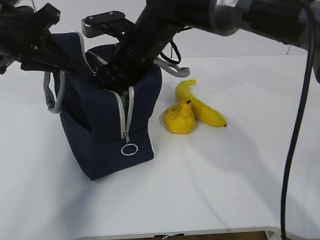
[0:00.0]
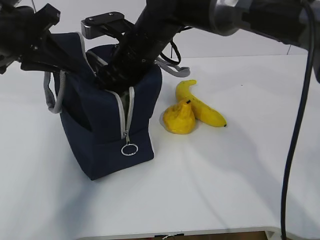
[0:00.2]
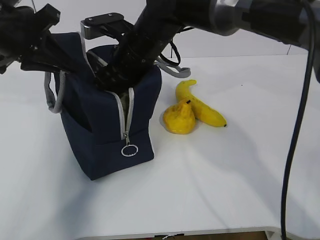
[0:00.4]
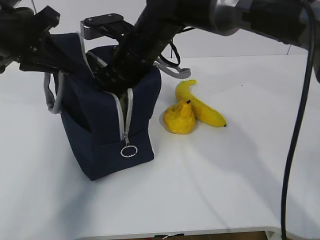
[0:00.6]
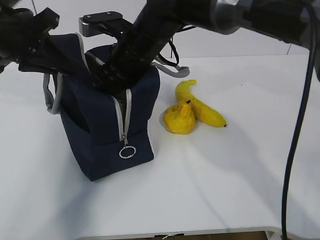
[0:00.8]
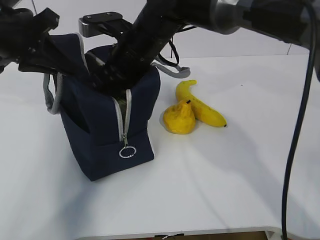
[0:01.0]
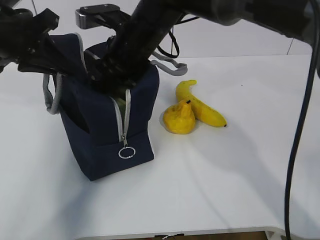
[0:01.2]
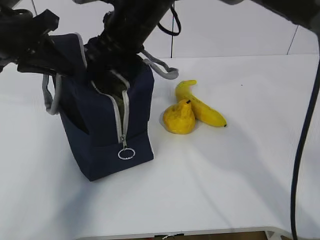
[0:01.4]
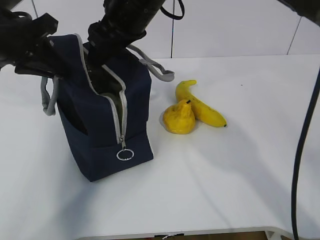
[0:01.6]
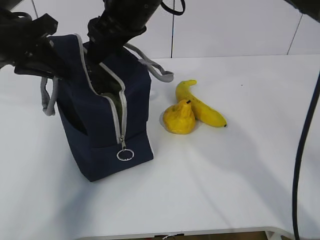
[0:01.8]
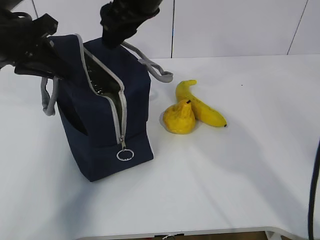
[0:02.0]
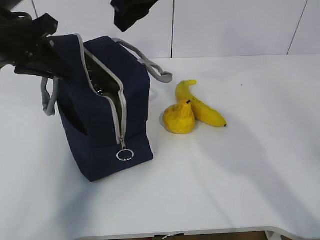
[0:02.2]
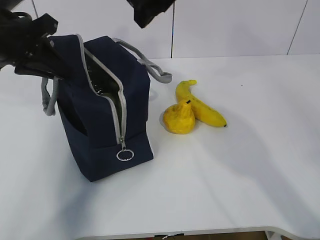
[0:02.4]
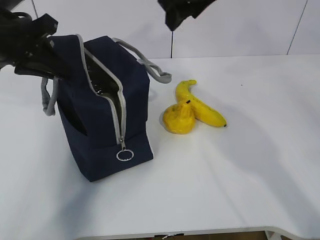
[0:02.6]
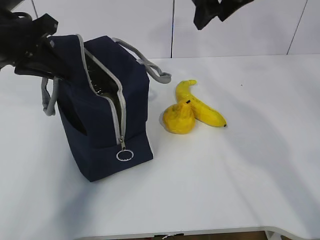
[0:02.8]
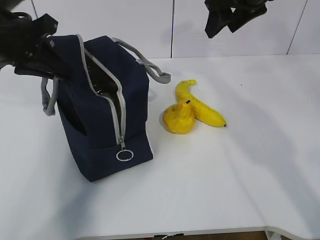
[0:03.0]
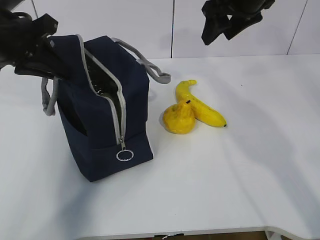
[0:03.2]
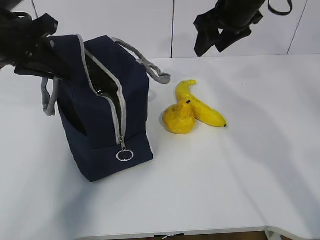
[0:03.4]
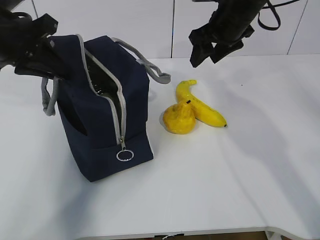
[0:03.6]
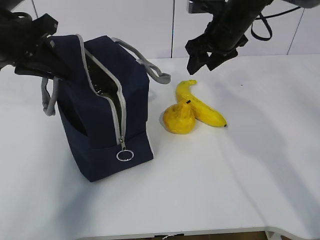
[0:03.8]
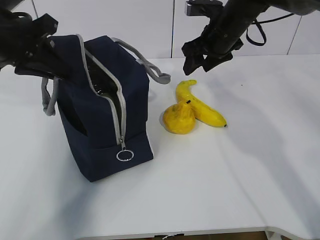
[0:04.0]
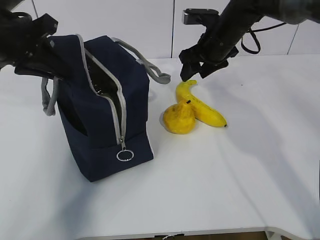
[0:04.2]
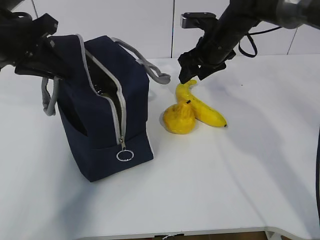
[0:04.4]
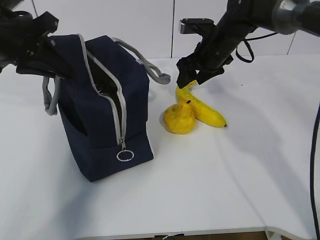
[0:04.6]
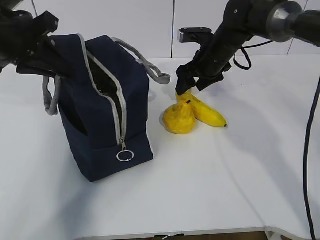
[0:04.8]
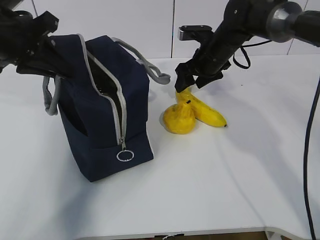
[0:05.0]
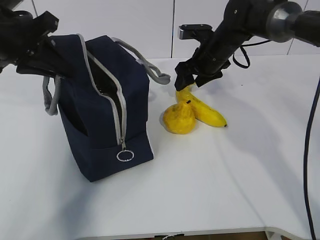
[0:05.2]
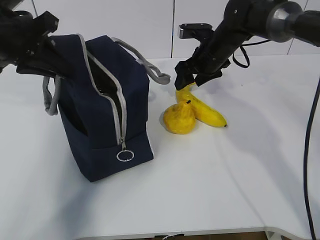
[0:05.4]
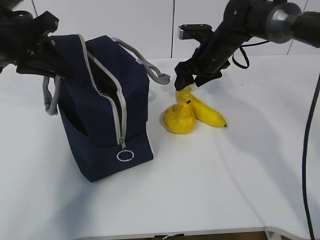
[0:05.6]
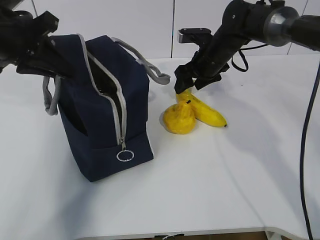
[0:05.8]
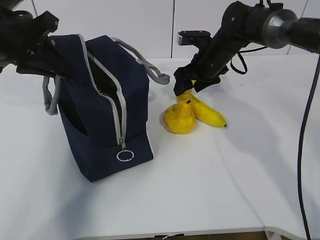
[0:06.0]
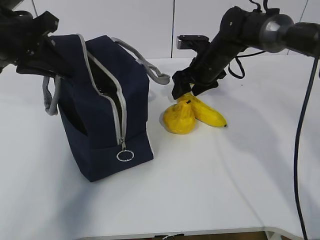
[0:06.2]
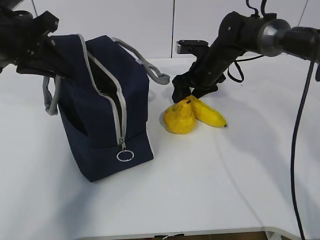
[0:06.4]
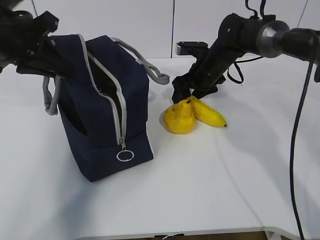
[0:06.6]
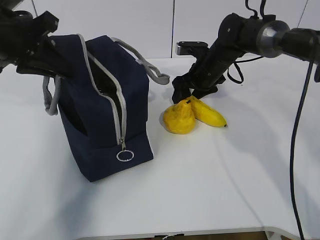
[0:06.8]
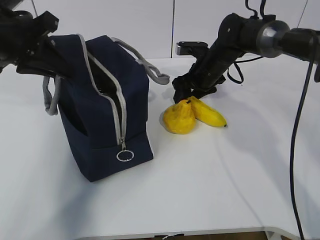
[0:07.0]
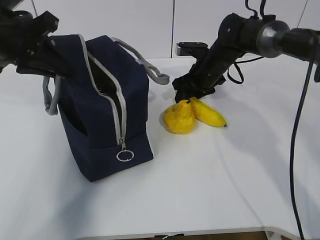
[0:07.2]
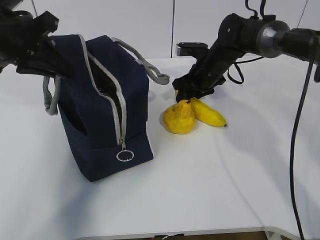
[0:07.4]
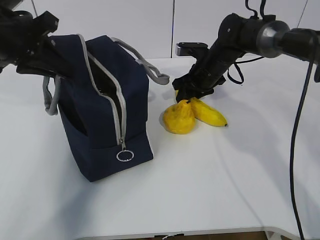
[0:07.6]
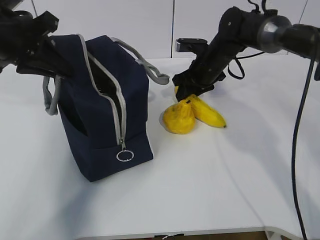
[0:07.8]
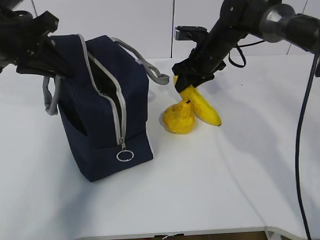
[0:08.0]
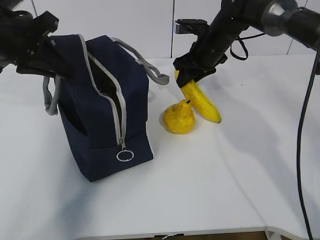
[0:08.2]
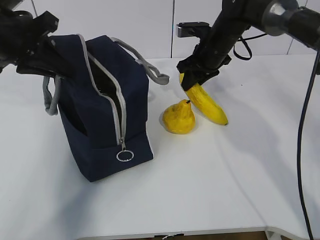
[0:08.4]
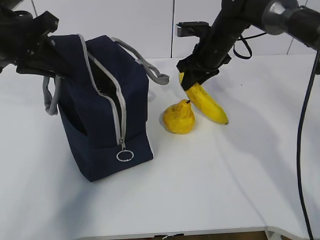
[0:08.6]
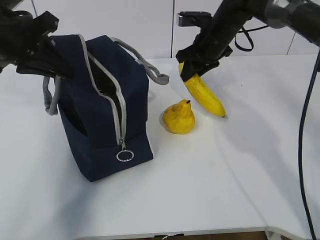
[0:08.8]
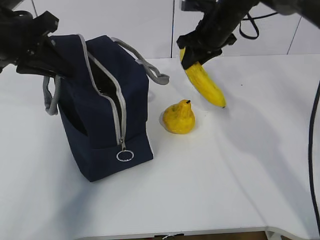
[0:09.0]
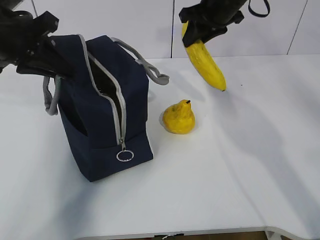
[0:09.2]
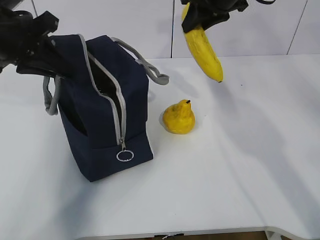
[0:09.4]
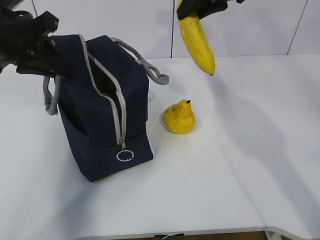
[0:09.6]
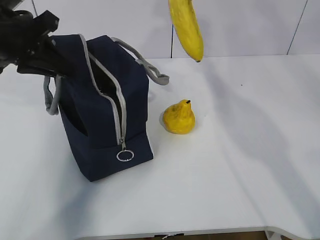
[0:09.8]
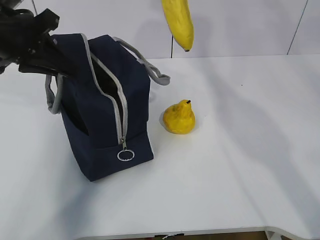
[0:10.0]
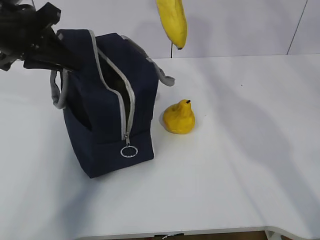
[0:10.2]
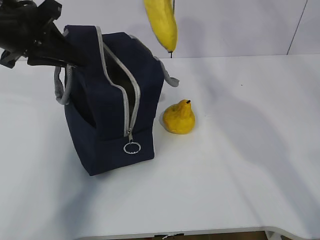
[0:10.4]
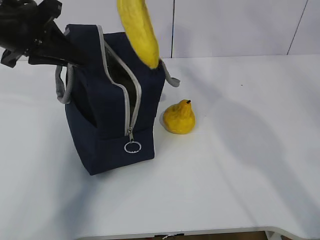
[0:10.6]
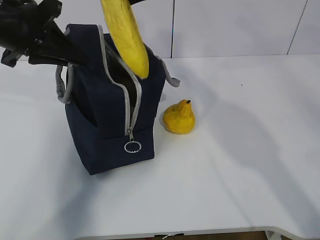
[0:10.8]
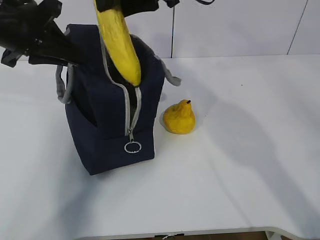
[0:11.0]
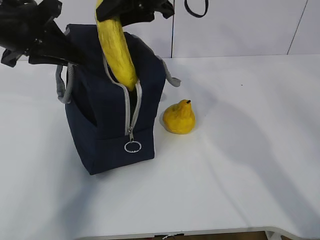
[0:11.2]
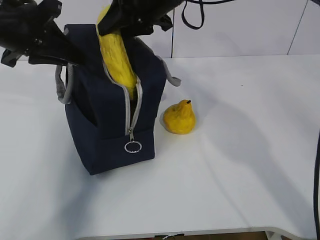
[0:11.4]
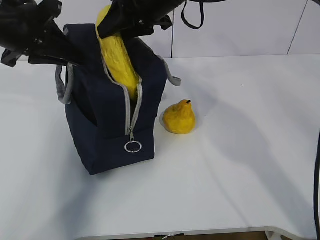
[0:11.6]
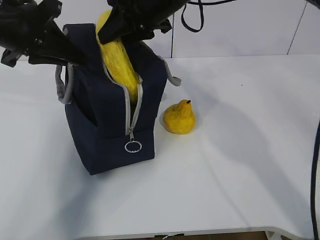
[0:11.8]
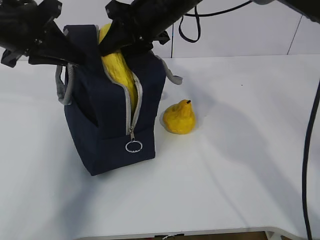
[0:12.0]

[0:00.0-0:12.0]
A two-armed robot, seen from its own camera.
Step, 0:00.0 to 0:02.2: Grab the banana with your right hand.
Step, 0:02.4 to 0:08.6: Place it into the bag with your right hand.
0:00.0 to 0:01.6: The right gripper moves upward, some 5 cm.
0:01.6 to 0:03.0: The right gripper goes approximately 20 cm to the right.
0:03.0 to 0:04.4: The right gripper is displaced downward and forward by some 15 cm.
0:04.4 to 0:06.0: The grippers move only a little.
0:06.0 to 0:07.6: The right gripper closes.
0:07.6 to 0:09.0: The right gripper moves upward, roughly 10 cm.
0:09.0 to 0:10.4: The right gripper moves upward and backward, some 20 cm.
0:10.4 to 0:12.0: The right gripper shifts some 15 cm downward and to the left.

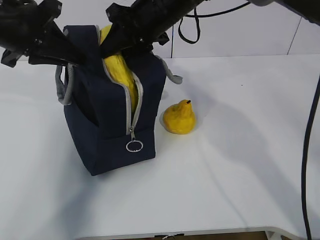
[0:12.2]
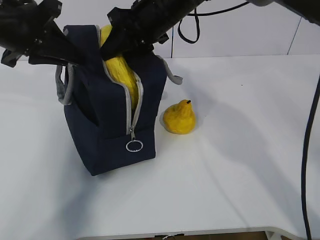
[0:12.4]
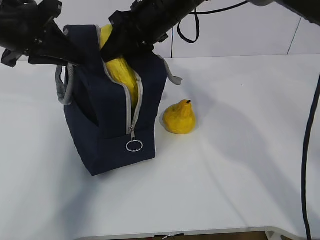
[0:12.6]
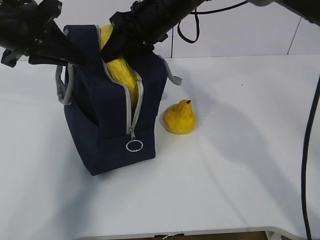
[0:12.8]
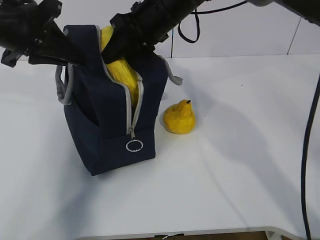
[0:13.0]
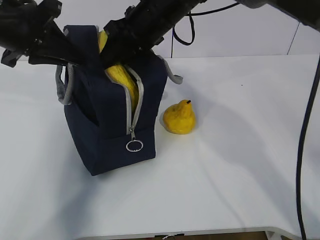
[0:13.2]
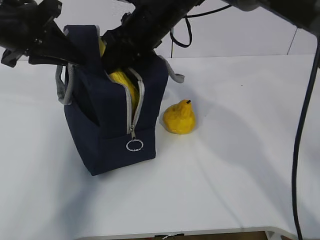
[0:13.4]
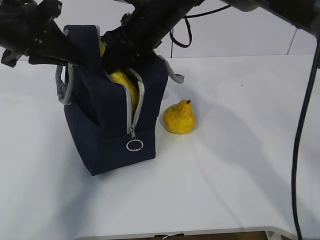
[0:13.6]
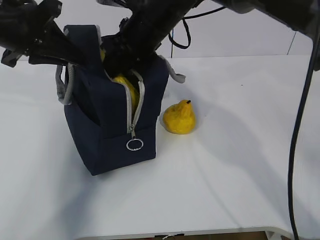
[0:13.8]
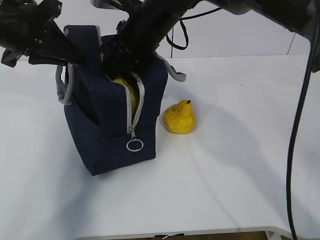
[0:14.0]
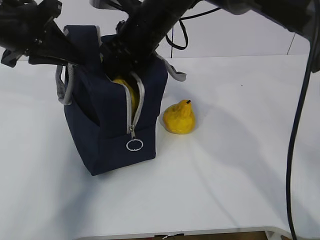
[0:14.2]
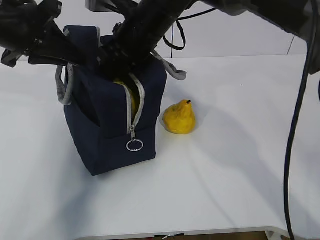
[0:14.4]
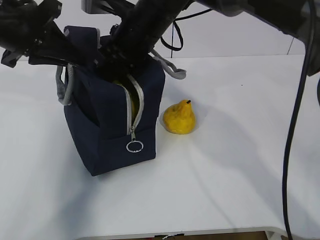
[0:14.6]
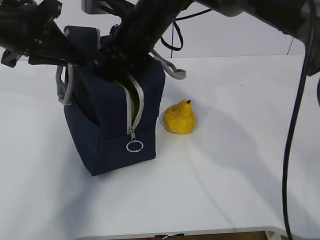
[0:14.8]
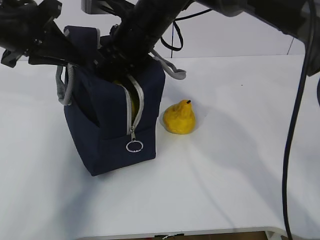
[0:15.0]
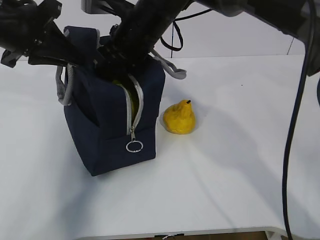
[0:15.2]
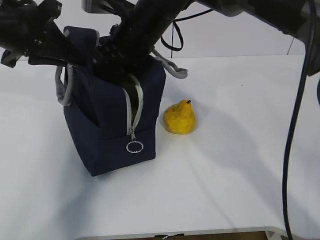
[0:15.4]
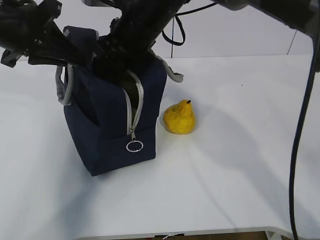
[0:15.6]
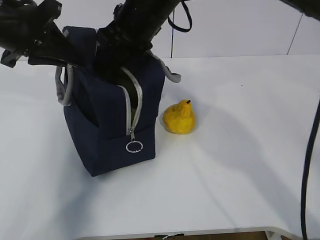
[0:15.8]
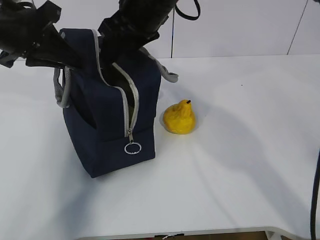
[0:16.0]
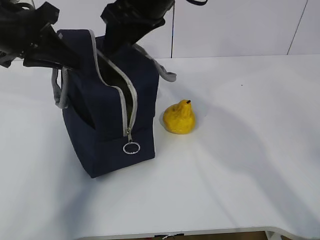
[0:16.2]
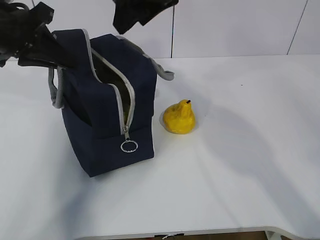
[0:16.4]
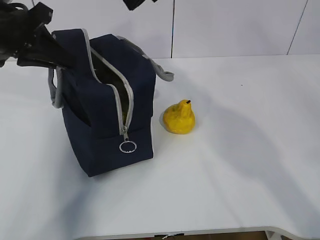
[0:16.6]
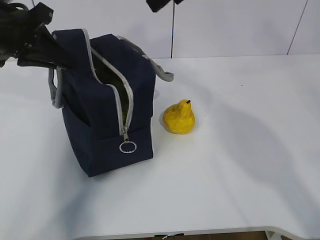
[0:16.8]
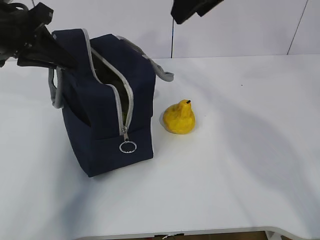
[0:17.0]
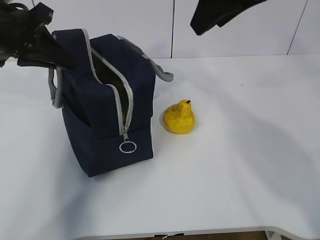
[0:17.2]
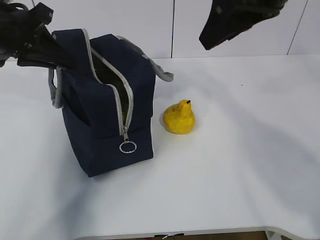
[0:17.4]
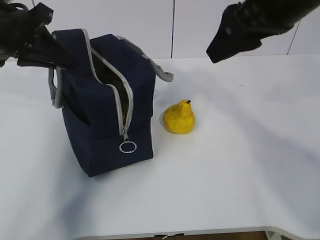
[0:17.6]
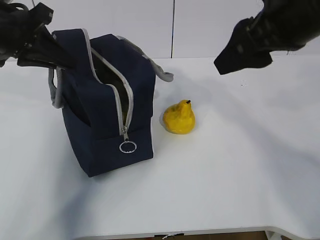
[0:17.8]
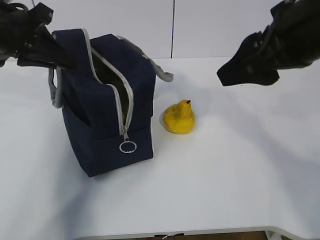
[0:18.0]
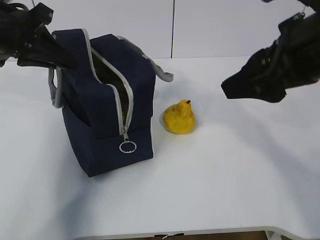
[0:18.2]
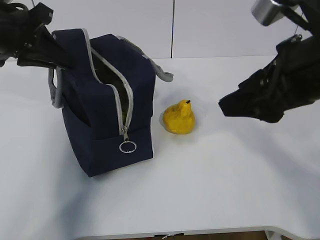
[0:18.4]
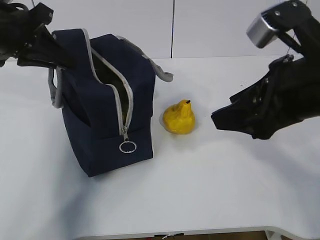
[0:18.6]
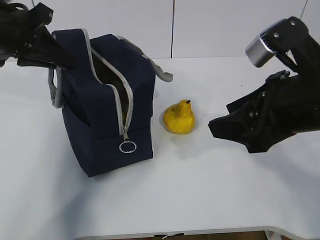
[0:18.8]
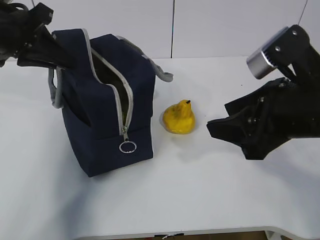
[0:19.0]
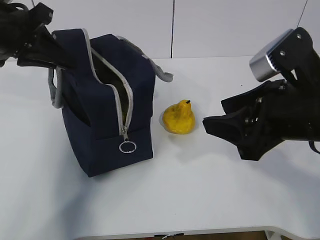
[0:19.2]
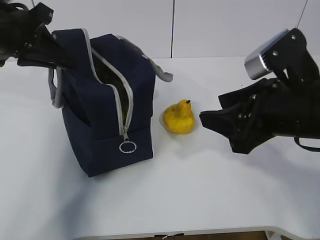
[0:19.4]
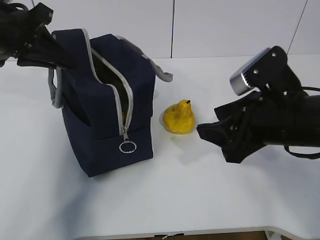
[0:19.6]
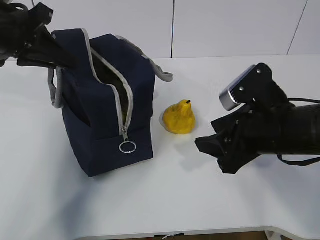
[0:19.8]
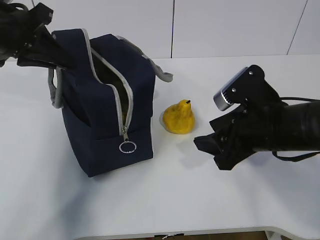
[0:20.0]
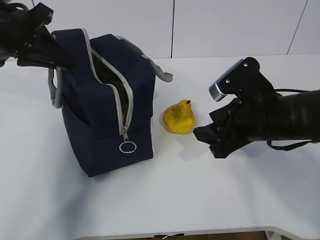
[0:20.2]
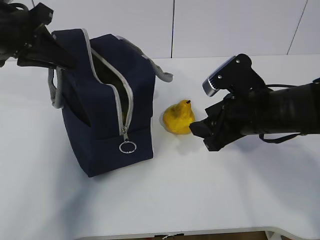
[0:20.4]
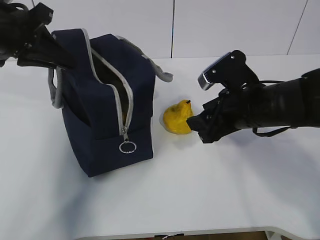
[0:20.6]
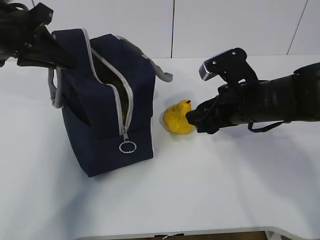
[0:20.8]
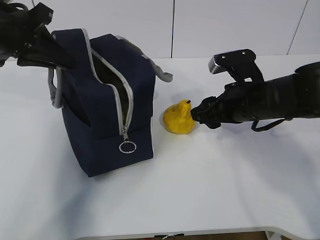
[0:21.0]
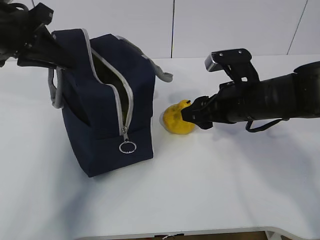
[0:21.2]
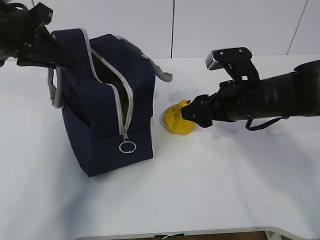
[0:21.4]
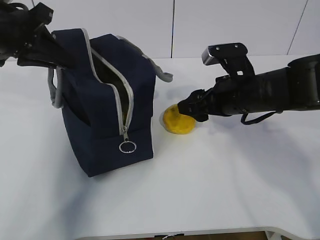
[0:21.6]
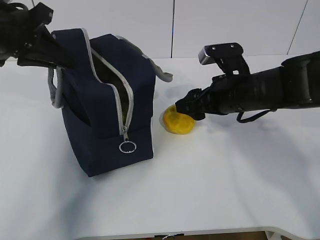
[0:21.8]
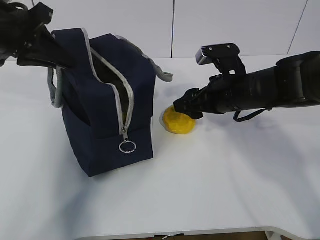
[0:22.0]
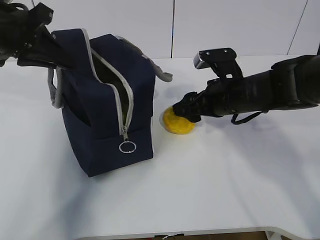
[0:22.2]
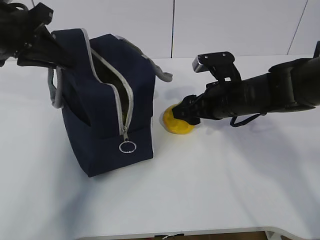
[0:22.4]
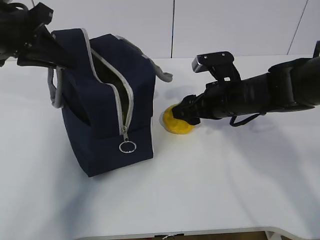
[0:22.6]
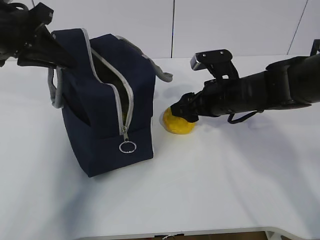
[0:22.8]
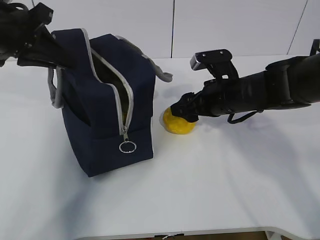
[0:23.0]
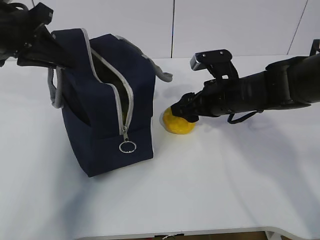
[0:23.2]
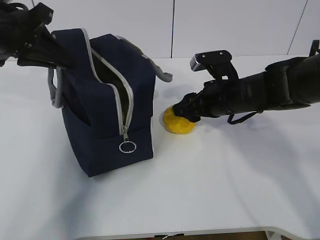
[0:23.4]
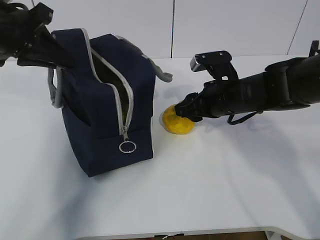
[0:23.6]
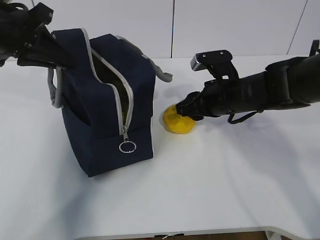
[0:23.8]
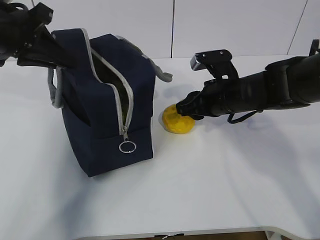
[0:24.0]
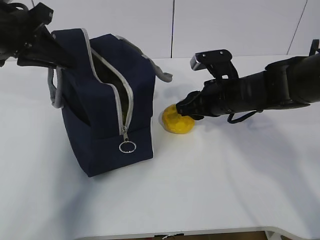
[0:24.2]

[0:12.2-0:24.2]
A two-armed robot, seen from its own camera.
Step, 0:12.2 to 0:16.6: Grab the pear with your right hand.
0:12.2 to 0:13.8: There are only small adjustments of the grippers.
0:13.8 to 0:15.2: There are only small adjustments of the grippers.
0:15.2 to 0:16.6: The right gripper travels upward and to the right by about 15 cm.
0:16.6 to 0:18.2: The right gripper travels backward, to the right and downward by roughly 20 cm.
0:18.2 to 0:19.8: The right gripper is displaced downward by some 15 cm.
0:19.8 to 0:21.2: The right gripper heads forward, covering about 10 cm.
0:21.2 to 0:22.6: The grippers make only small movements.
0:22.6 to 0:24.2: The right gripper closes its fingers.
